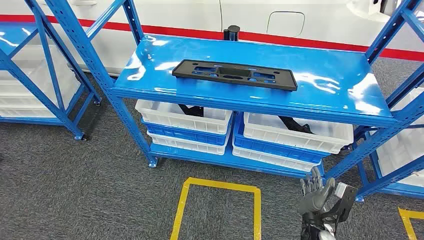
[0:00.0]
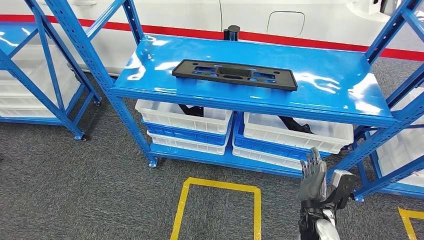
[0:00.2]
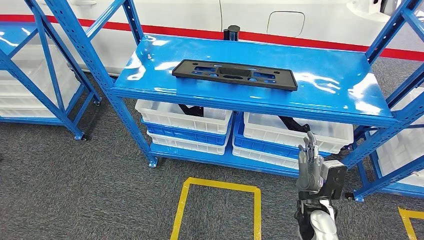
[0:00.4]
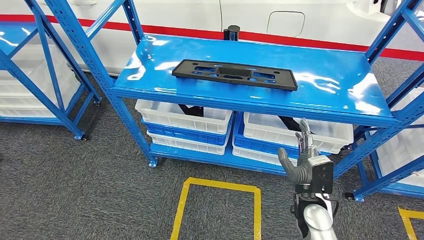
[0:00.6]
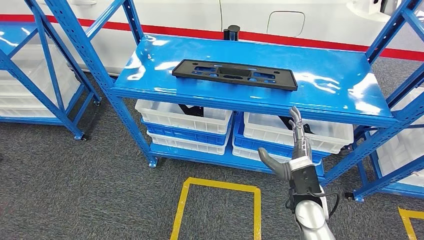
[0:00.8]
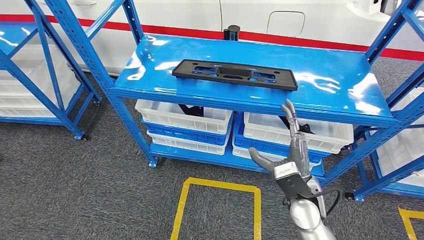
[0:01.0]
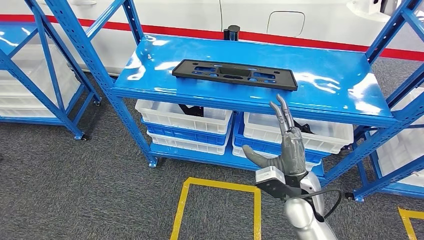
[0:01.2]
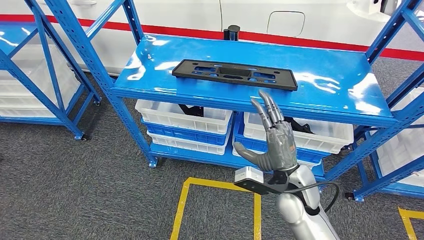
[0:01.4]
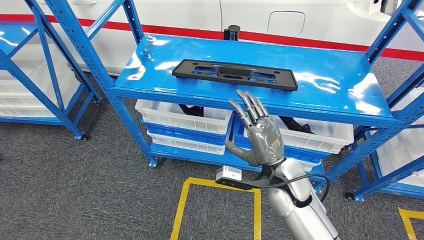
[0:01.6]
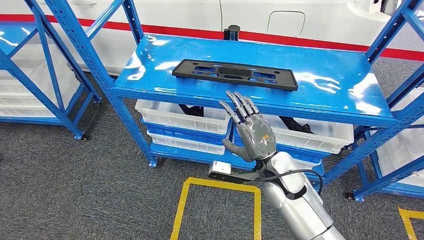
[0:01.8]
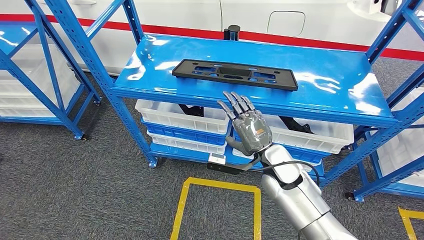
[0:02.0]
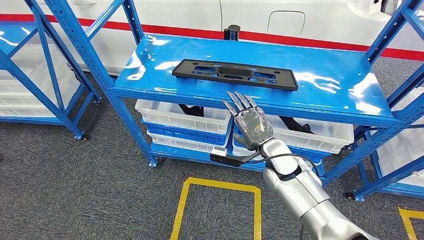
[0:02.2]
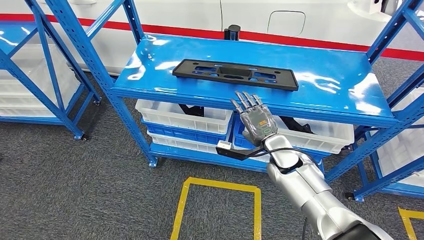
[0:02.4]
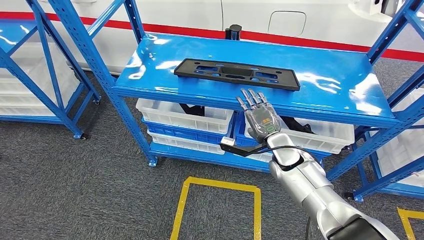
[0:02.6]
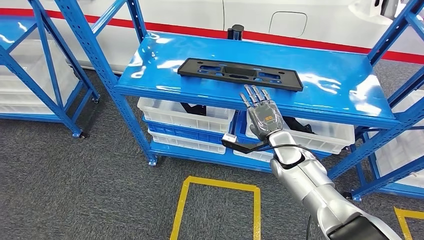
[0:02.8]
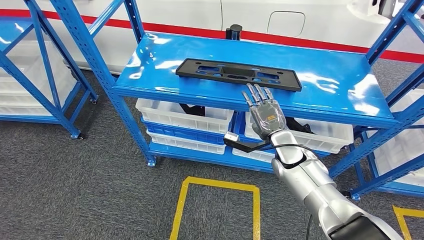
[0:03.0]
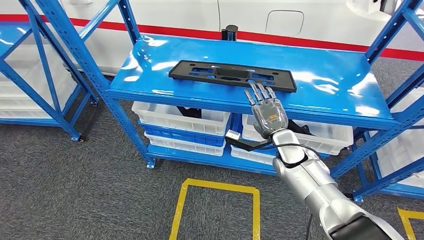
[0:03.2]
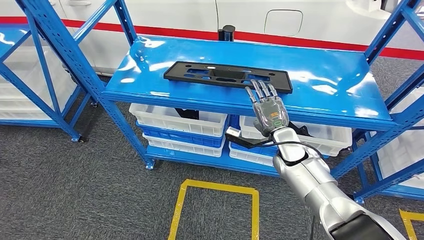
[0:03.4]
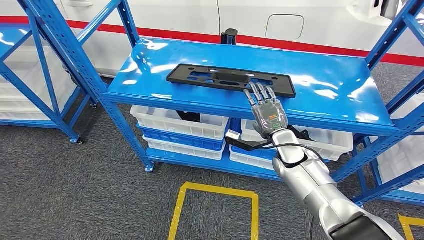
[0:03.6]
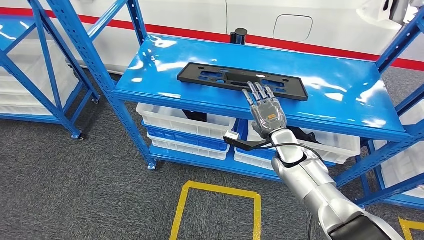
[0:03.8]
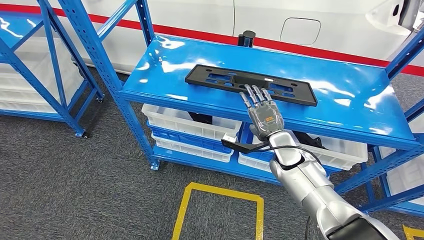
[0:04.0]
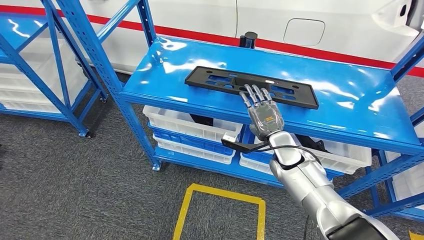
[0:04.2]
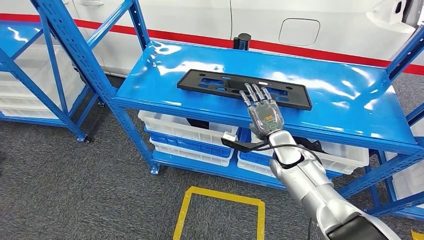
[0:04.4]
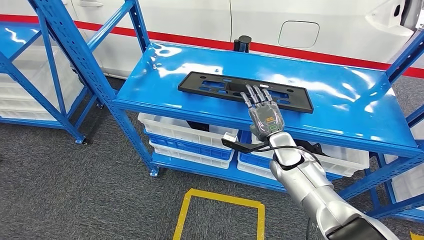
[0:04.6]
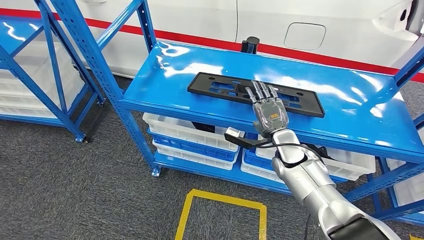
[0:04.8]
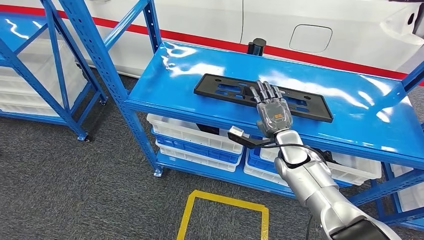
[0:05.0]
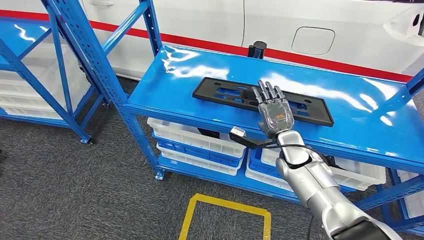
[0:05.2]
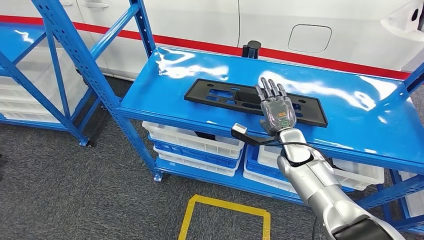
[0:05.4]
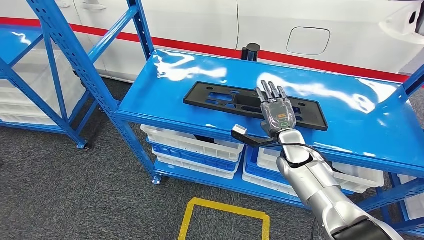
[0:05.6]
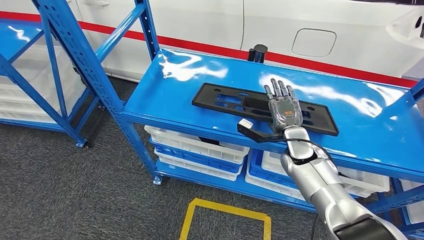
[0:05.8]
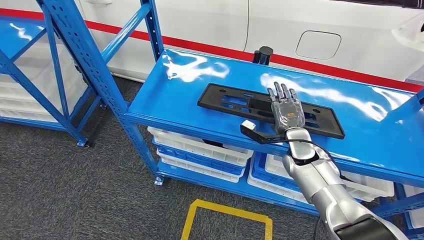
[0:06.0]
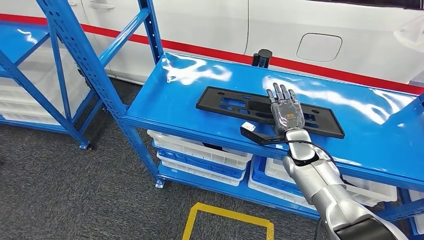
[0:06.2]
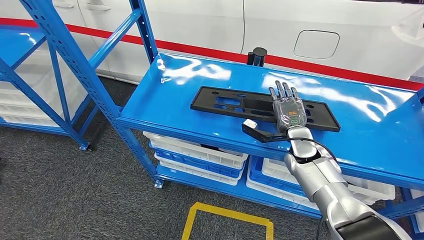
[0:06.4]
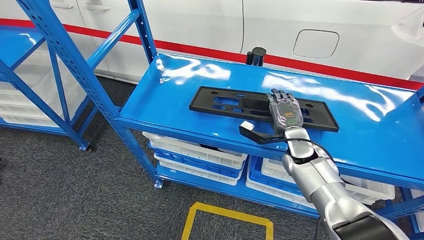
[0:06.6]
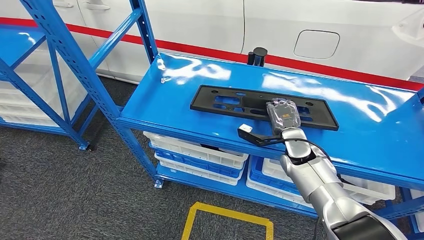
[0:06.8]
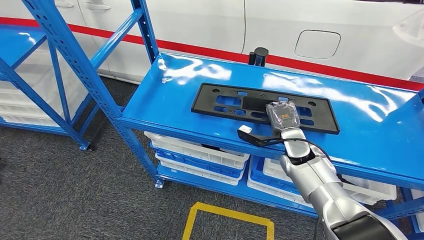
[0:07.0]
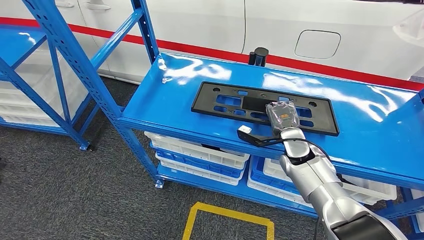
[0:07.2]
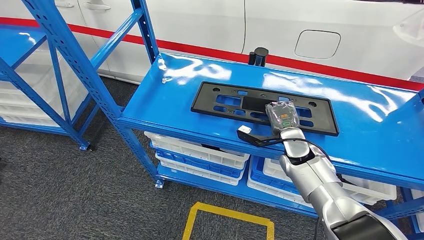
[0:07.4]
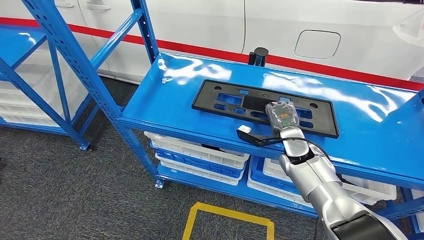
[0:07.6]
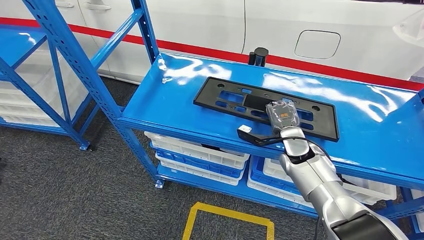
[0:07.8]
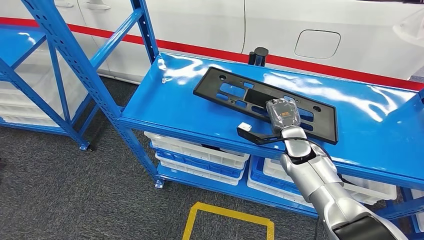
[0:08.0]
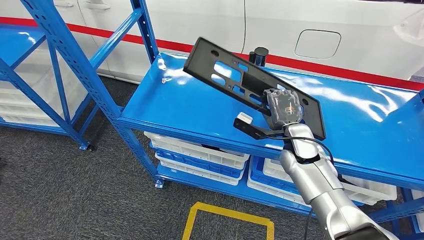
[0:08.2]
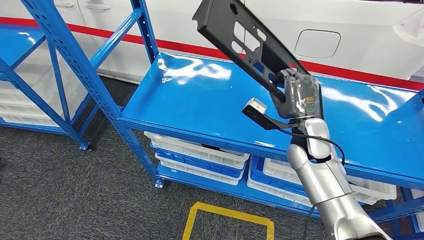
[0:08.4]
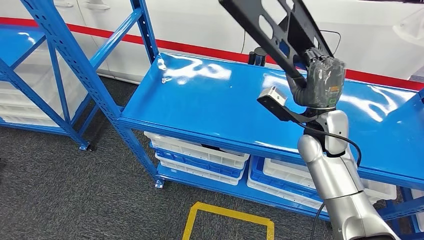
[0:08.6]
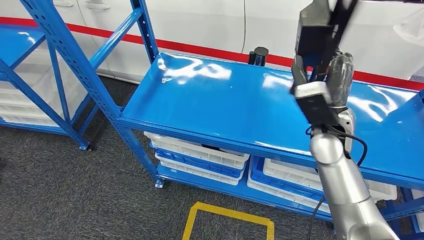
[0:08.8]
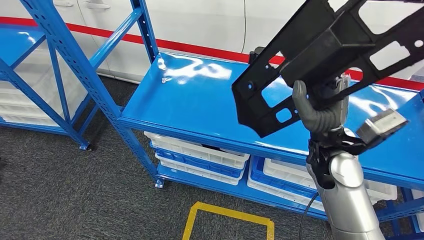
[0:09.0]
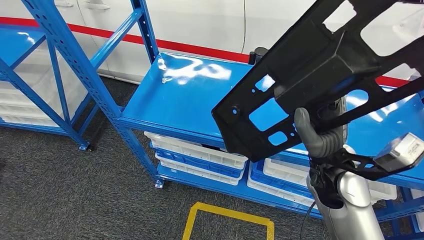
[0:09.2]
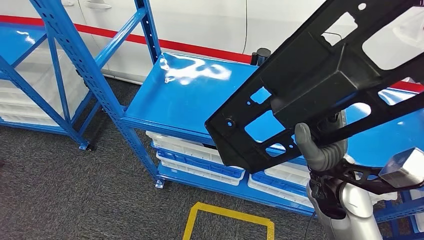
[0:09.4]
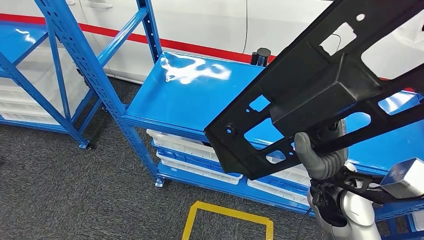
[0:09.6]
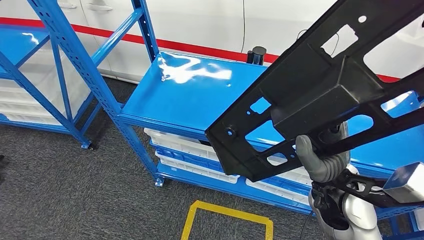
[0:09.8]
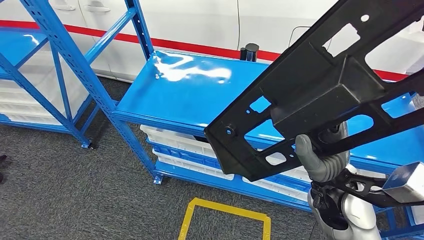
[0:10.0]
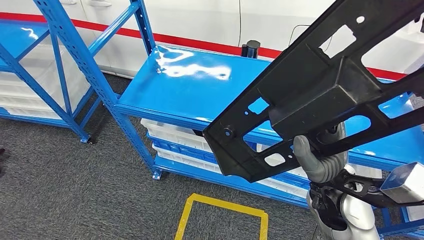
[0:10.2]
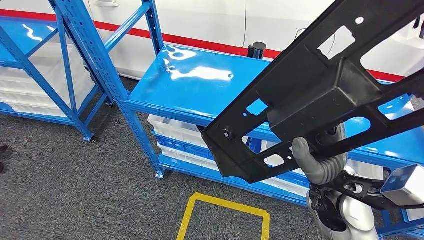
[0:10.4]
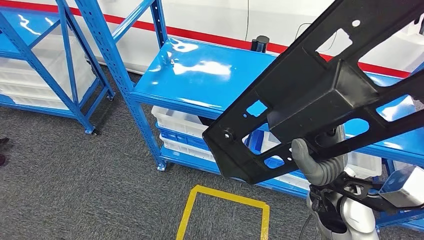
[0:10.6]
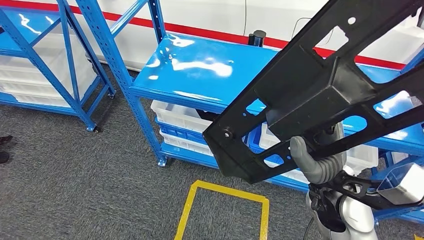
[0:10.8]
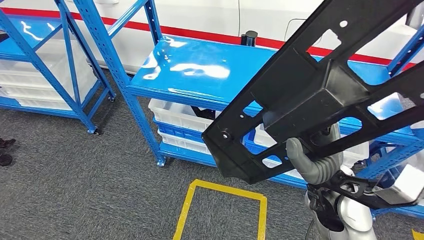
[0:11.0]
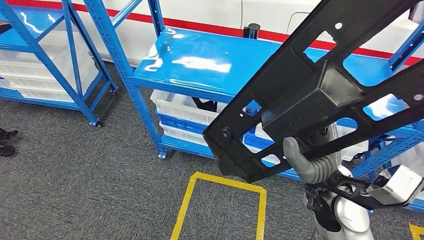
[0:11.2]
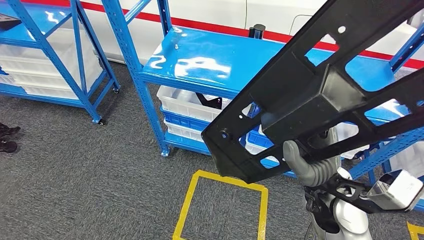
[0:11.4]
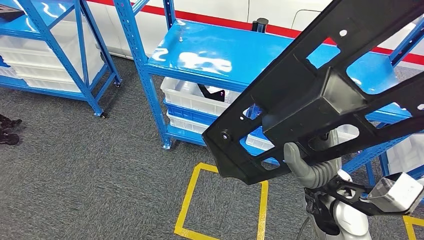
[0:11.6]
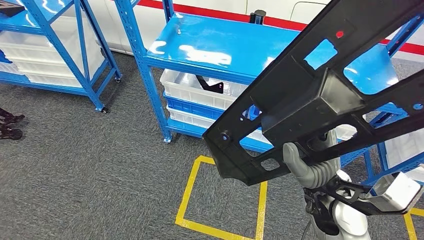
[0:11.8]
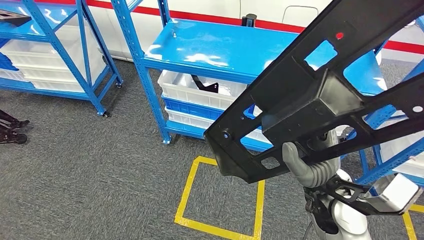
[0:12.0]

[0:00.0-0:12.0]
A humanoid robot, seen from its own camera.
Step, 0:00.0 to 0:09.6: Pick up the large parts from the shelf.

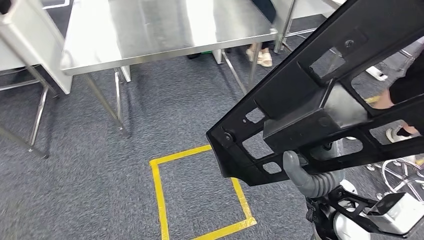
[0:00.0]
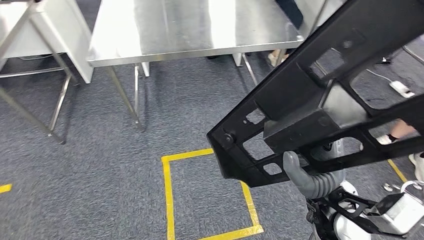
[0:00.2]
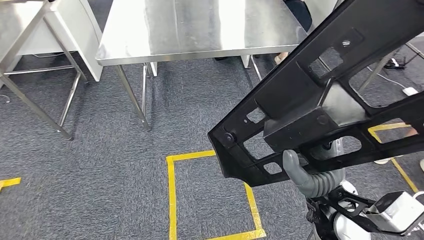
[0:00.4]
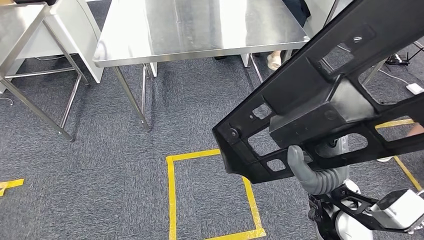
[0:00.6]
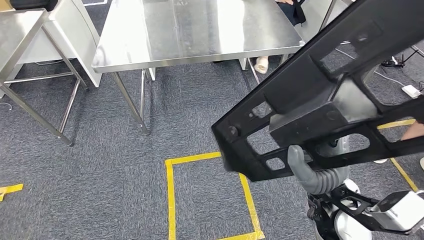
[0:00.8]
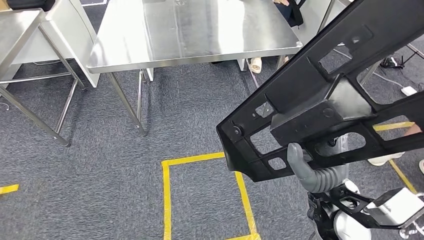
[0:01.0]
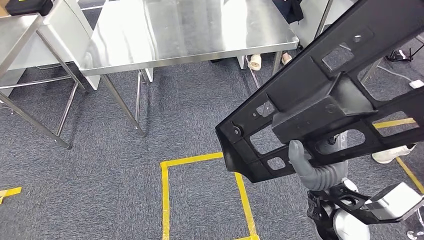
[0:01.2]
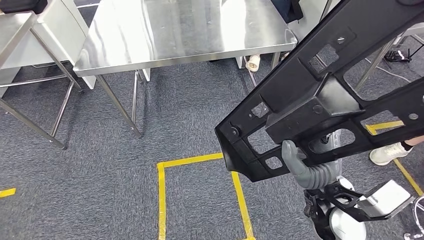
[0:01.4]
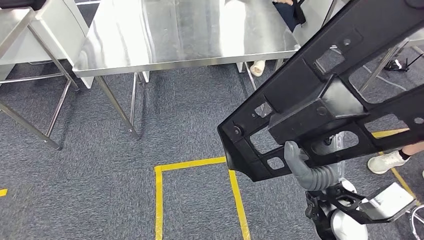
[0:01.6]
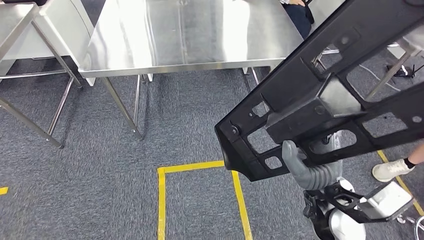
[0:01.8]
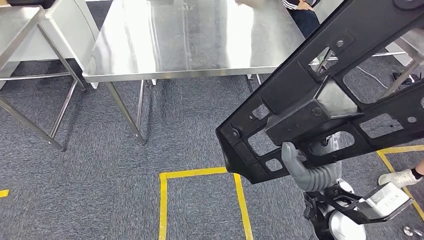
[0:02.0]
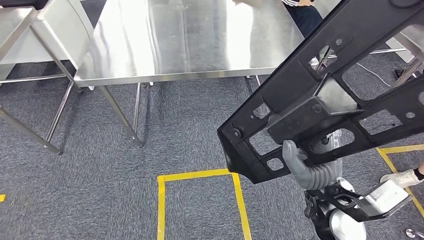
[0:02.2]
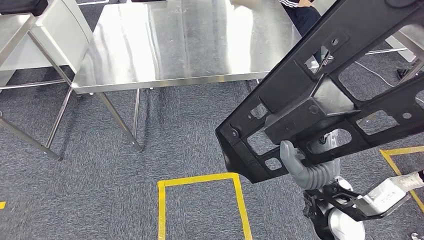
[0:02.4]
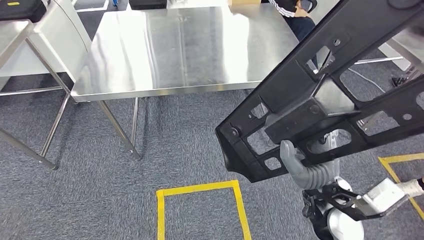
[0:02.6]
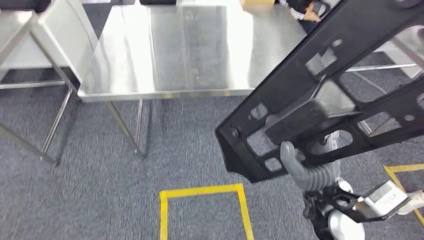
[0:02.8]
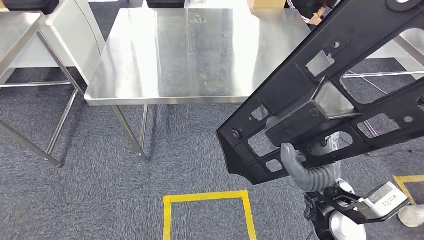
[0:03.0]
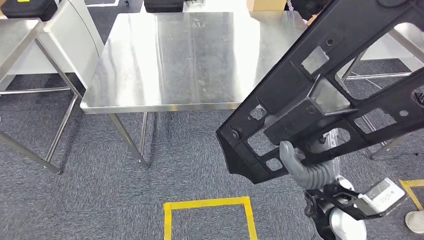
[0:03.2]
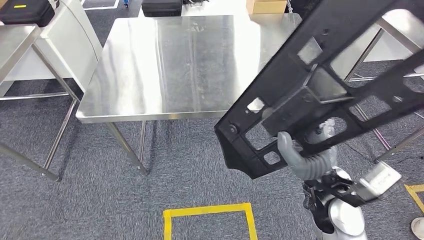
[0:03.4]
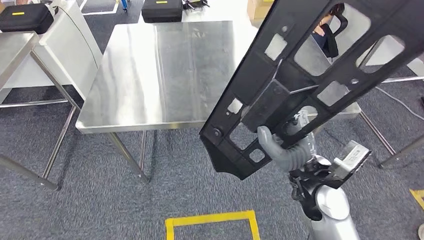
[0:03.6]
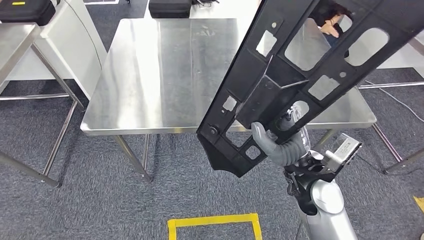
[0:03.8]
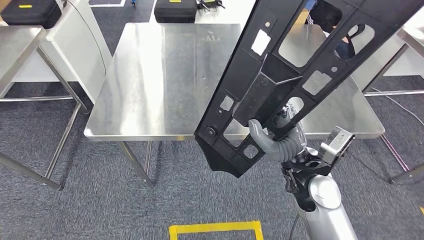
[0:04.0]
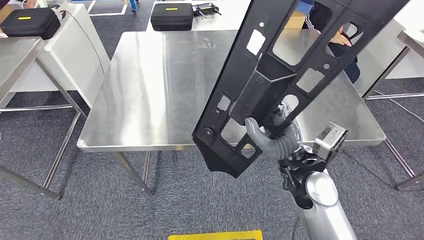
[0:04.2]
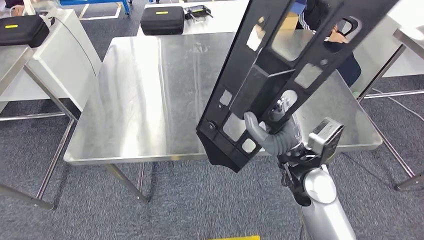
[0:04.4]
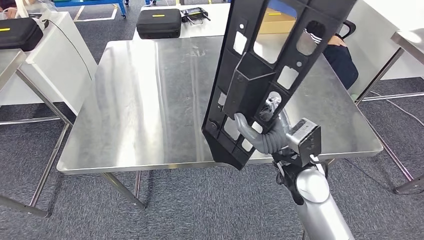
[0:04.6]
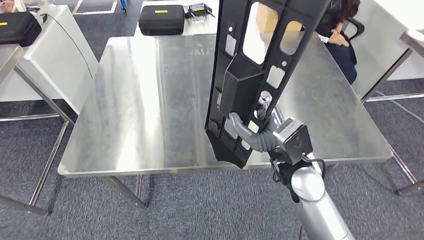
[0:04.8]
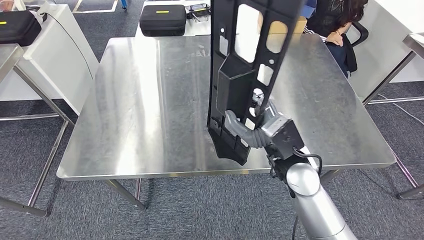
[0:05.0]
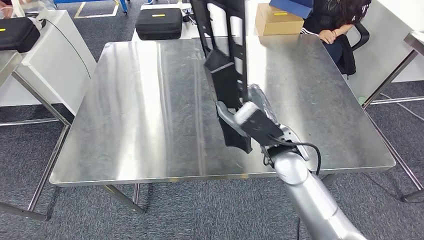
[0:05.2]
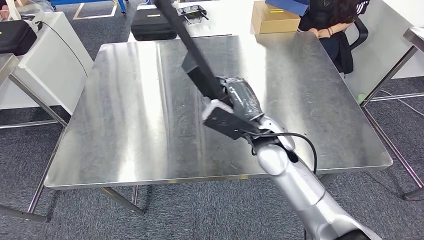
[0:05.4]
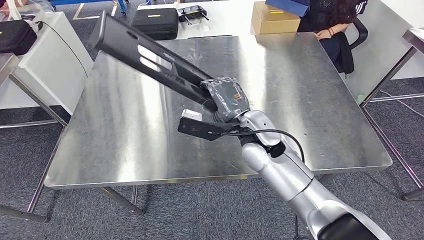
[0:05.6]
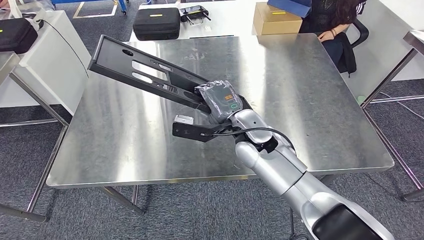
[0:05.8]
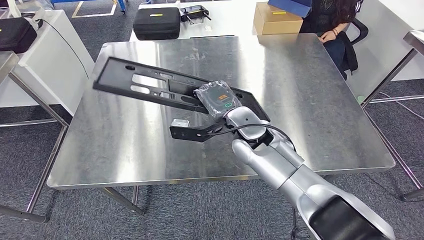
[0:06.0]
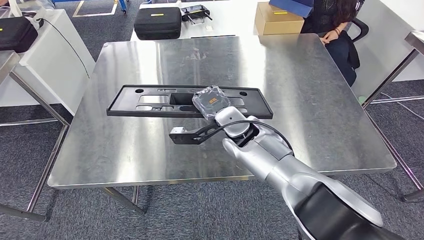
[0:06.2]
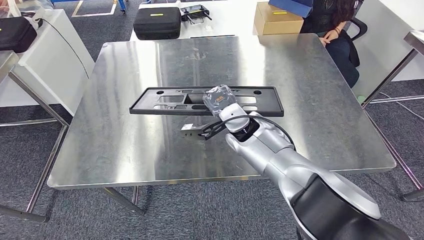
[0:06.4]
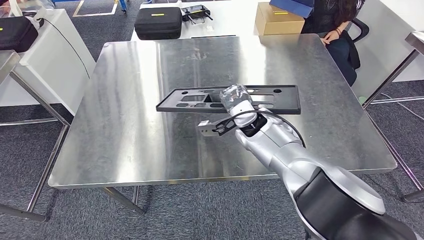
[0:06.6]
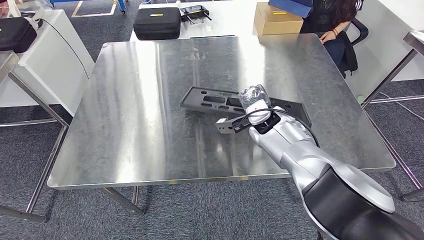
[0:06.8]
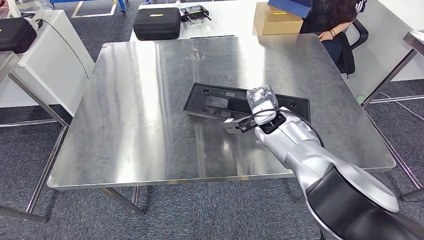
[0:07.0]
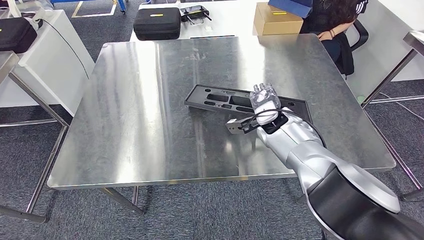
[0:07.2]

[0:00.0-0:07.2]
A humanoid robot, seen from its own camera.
Step, 0:00.0 to 0:03.0: Move the large parts to the workbench.
